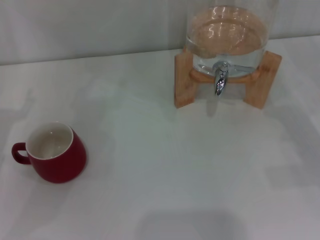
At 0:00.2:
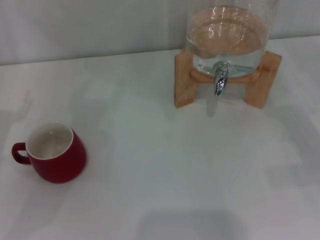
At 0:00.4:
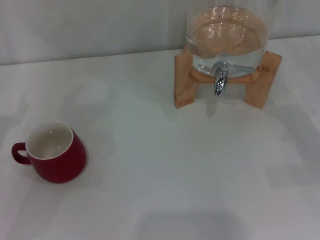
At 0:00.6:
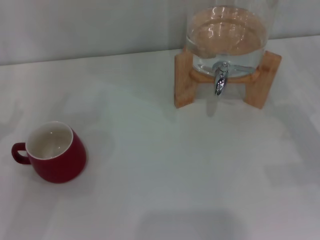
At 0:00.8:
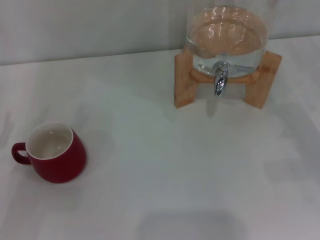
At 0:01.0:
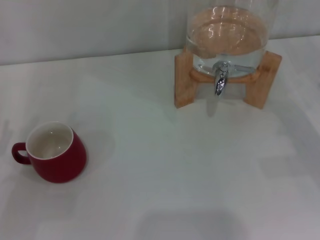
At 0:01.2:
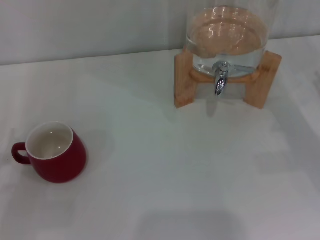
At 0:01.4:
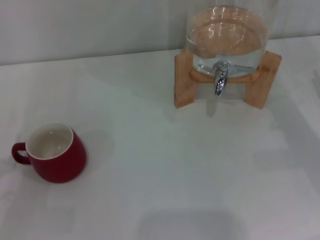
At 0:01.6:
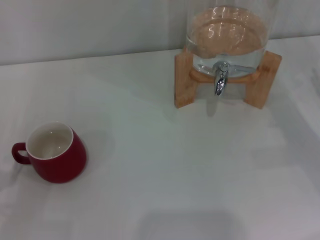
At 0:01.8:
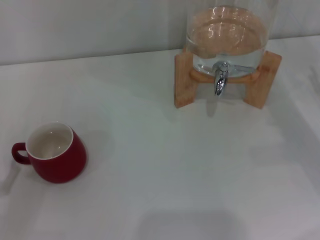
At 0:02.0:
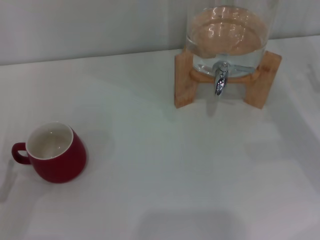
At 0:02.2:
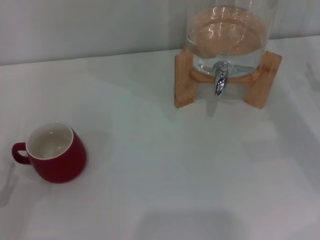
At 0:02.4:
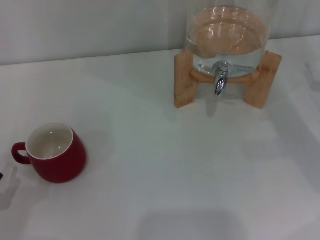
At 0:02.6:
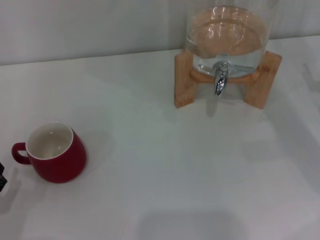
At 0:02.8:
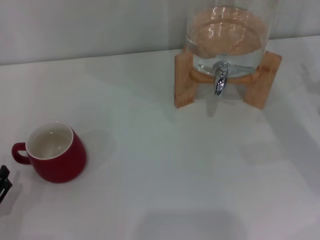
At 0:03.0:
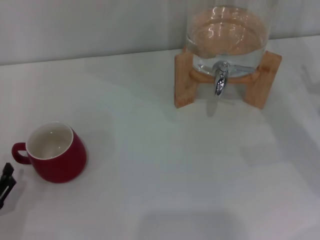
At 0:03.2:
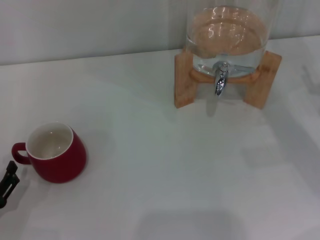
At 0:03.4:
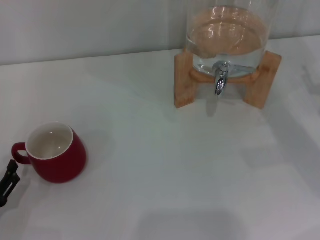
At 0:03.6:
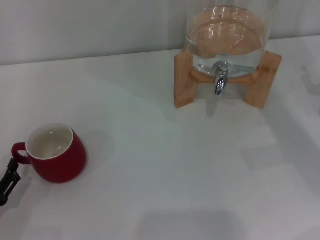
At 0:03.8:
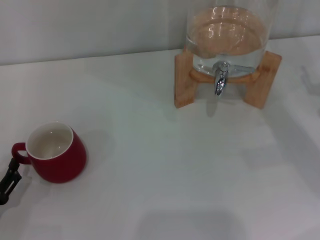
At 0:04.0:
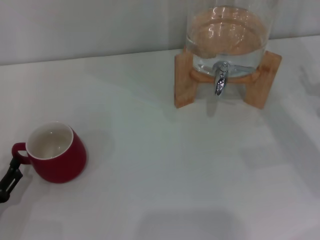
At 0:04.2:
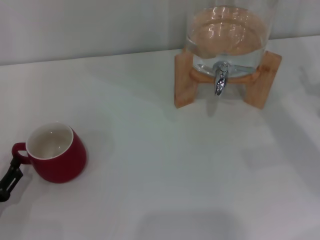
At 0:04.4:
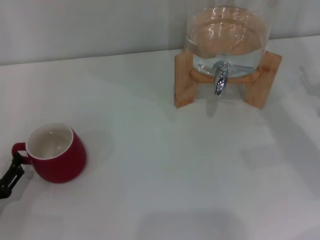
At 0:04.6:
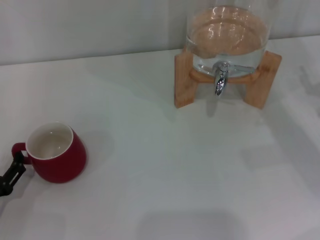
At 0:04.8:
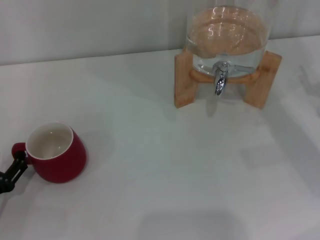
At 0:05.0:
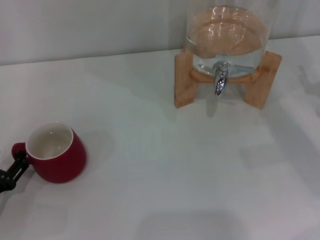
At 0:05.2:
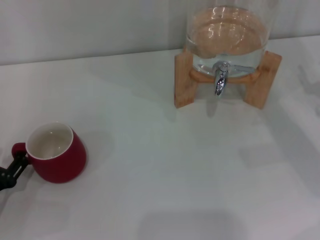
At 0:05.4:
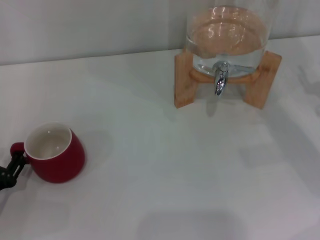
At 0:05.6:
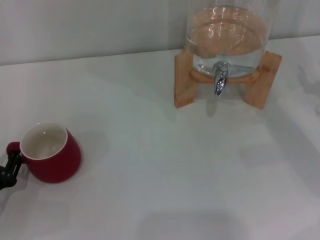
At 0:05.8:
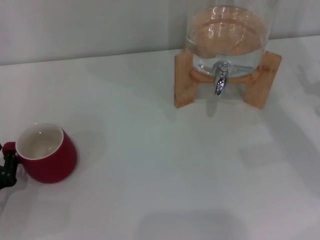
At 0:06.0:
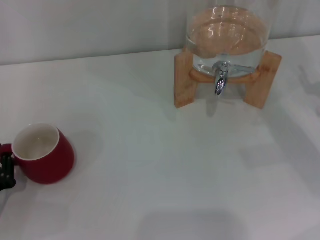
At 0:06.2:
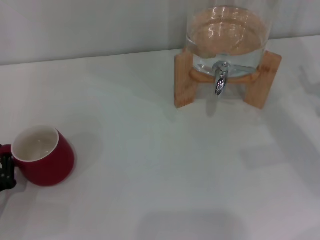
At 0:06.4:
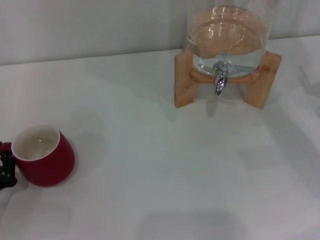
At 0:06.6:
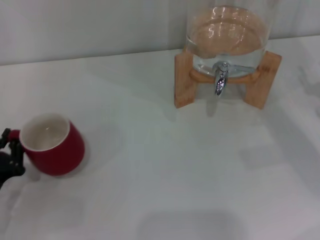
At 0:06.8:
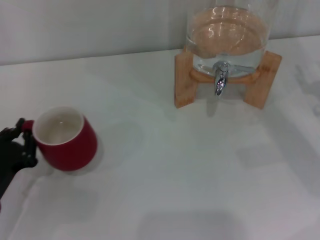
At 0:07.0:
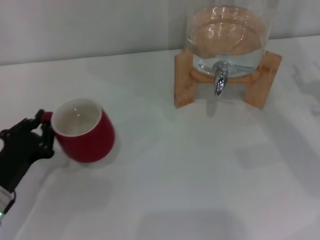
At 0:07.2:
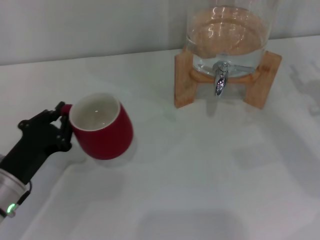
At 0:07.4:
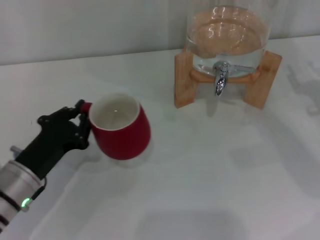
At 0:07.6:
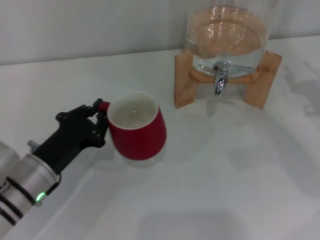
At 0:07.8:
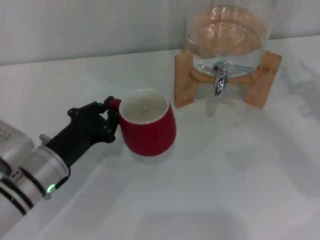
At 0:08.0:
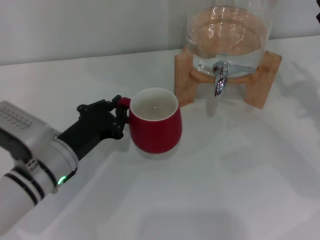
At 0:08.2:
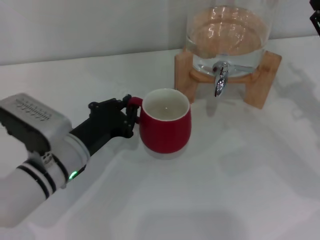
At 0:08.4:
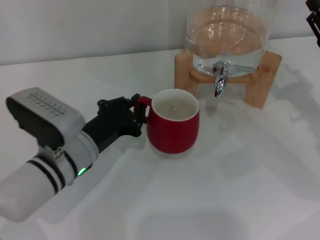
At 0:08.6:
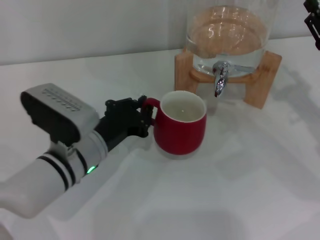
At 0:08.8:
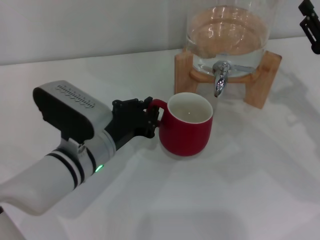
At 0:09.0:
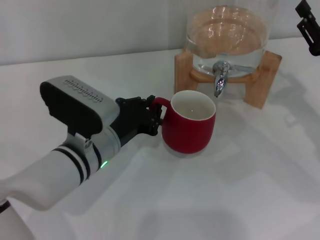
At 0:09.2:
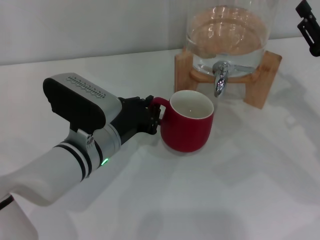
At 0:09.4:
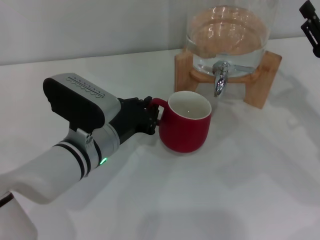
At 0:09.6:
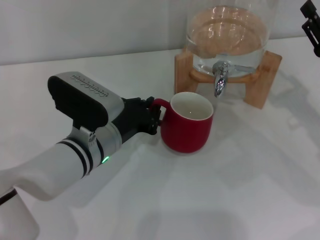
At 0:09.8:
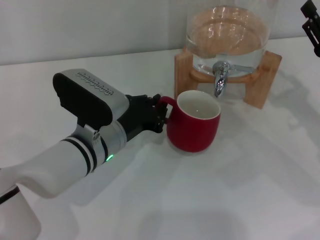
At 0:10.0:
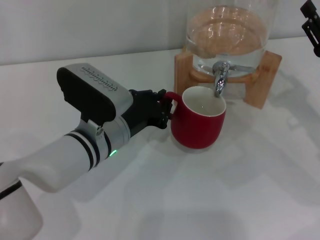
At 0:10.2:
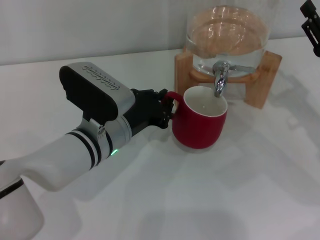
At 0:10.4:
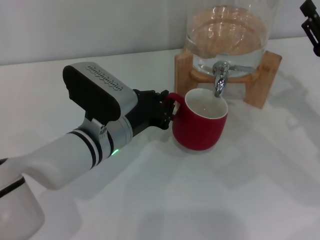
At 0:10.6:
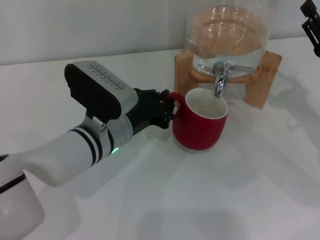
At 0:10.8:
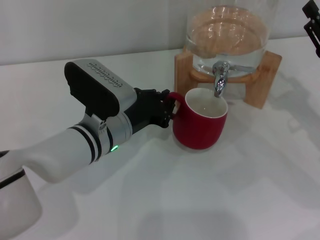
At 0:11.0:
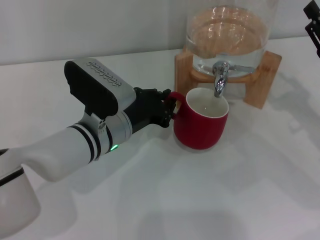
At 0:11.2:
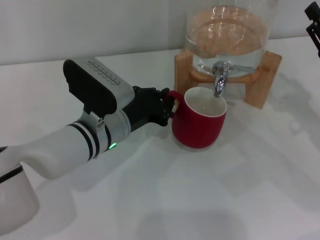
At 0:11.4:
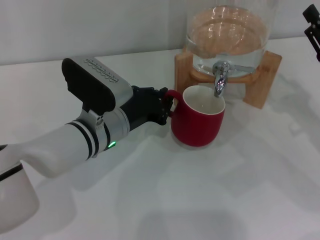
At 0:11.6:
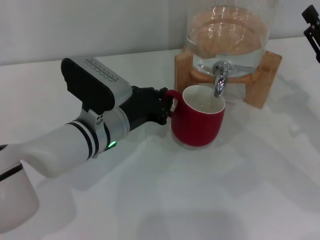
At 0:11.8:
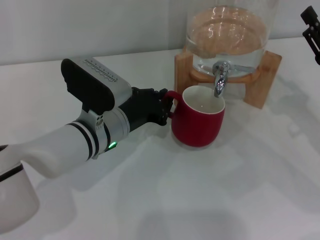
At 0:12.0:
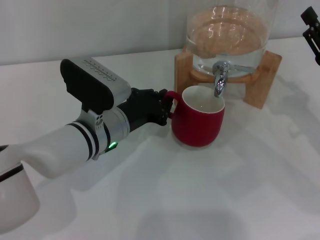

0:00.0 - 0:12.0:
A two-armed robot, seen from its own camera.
Task of the whole recording: the left gripper pick up the red cup and place it horizontally under the faucet, the right gripper turn on the faucet to fill the cup, and then turn off the faucet.
0:01.6 - 0:03.0: The grippers stay close to where they were, moving slightly.
0:04.4 - 0:06.0: The left gripper closes up.
0:06.0 - 0:07.6: The left gripper travels to the right and forward by some 10 cm.
0:07.6 - 0:09.0: The left gripper shifts roughly 10 cm to the right.
0:09.0 - 0:12.0: The grippers stay close to where they were, moving slightly.

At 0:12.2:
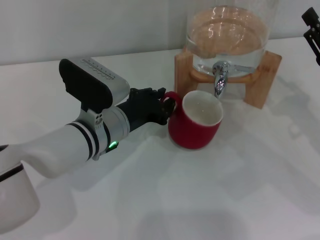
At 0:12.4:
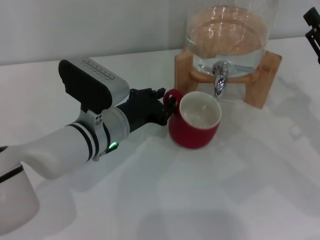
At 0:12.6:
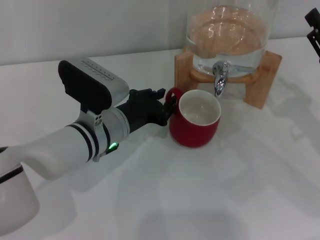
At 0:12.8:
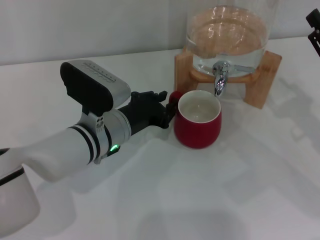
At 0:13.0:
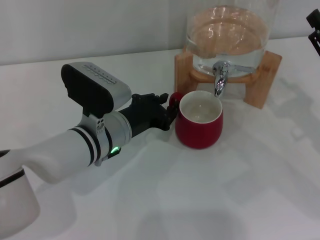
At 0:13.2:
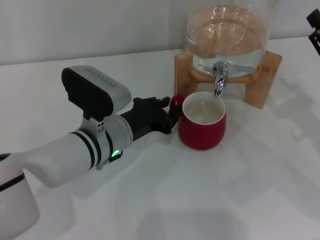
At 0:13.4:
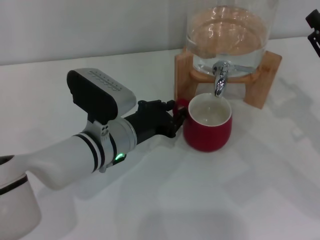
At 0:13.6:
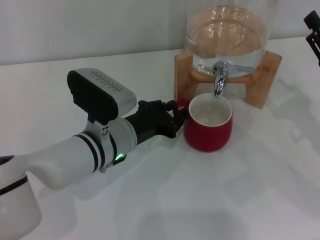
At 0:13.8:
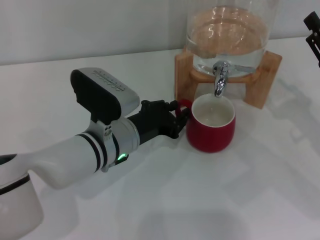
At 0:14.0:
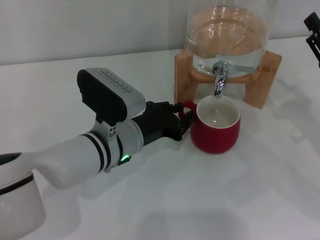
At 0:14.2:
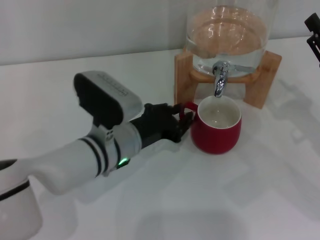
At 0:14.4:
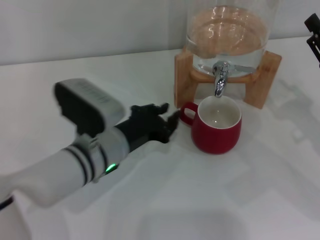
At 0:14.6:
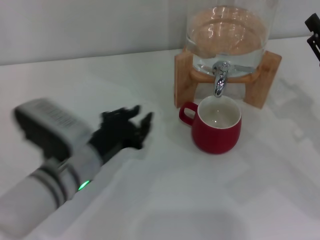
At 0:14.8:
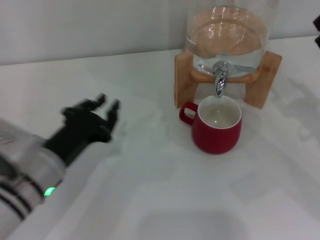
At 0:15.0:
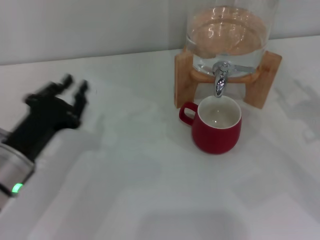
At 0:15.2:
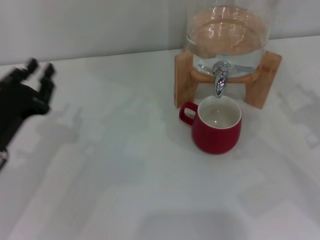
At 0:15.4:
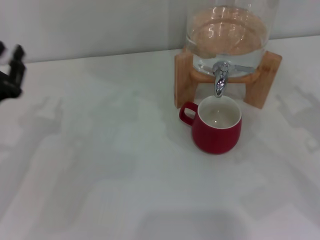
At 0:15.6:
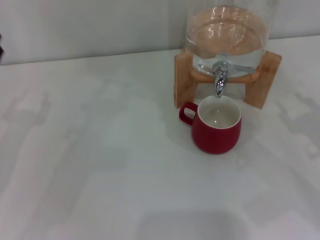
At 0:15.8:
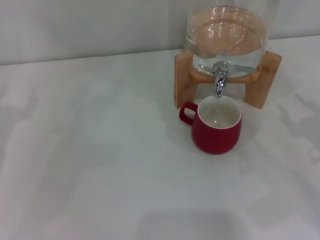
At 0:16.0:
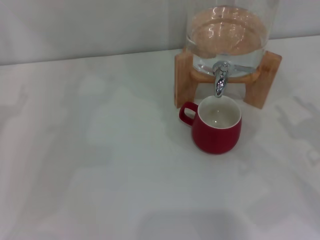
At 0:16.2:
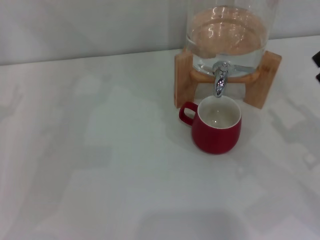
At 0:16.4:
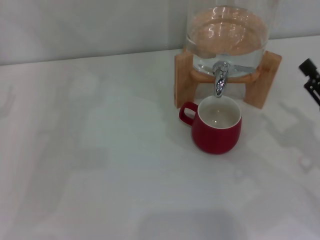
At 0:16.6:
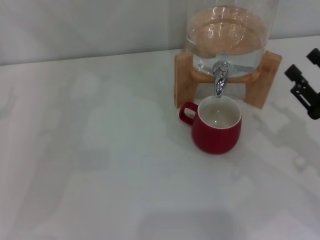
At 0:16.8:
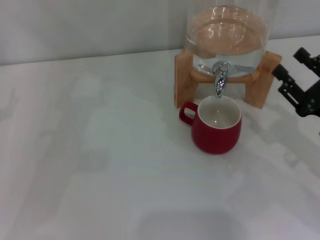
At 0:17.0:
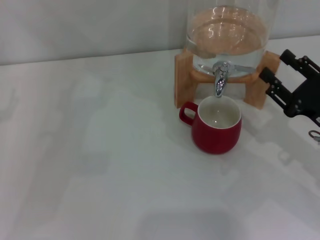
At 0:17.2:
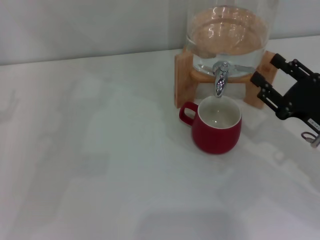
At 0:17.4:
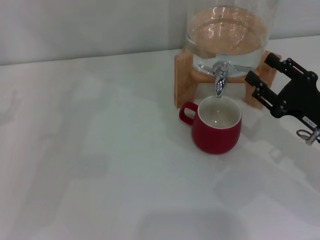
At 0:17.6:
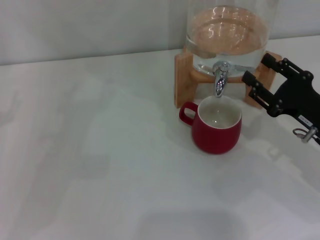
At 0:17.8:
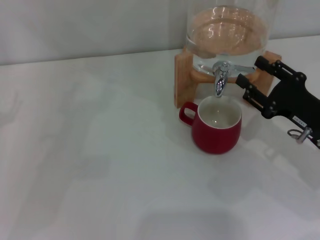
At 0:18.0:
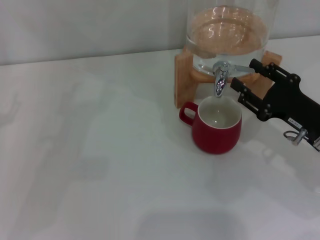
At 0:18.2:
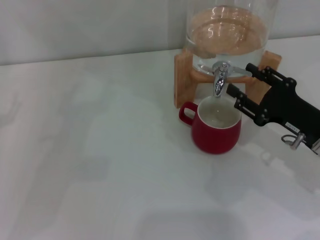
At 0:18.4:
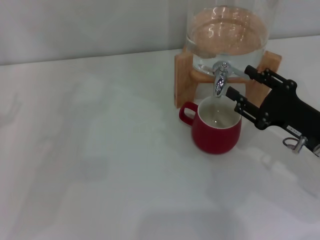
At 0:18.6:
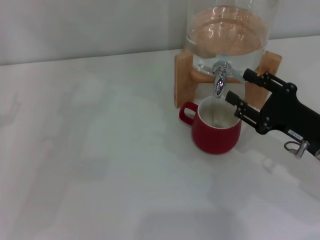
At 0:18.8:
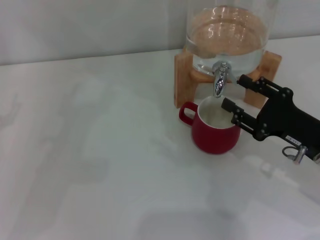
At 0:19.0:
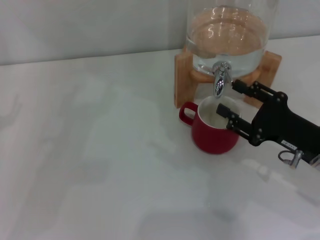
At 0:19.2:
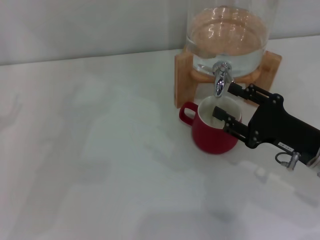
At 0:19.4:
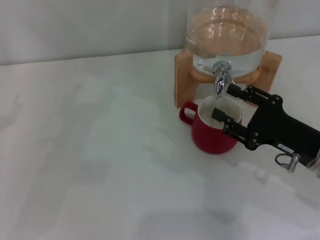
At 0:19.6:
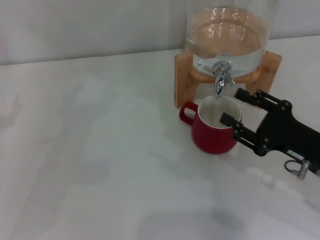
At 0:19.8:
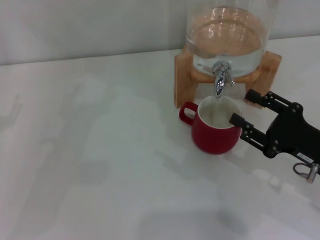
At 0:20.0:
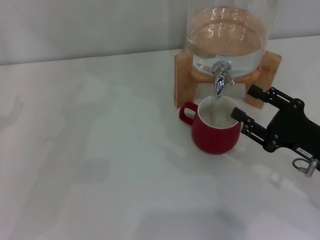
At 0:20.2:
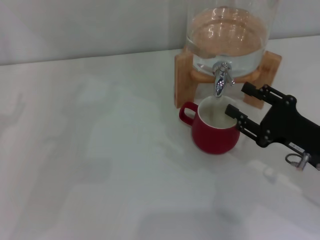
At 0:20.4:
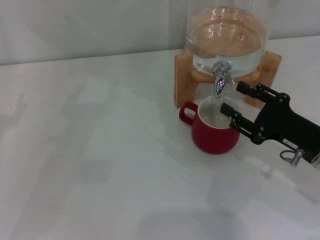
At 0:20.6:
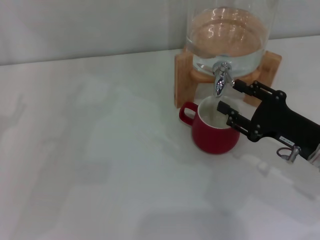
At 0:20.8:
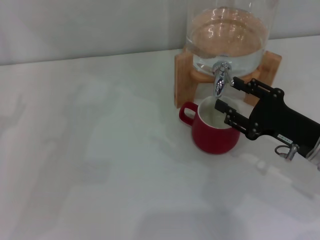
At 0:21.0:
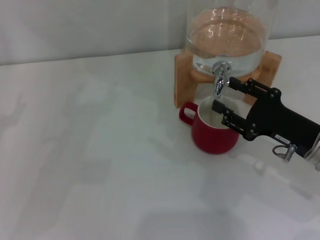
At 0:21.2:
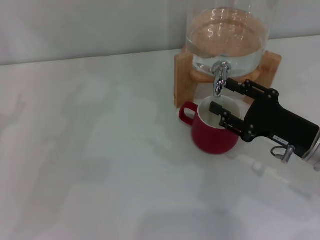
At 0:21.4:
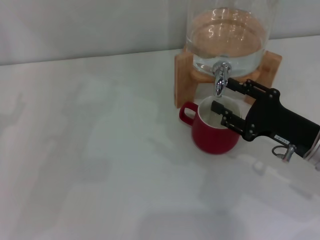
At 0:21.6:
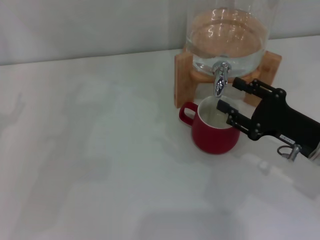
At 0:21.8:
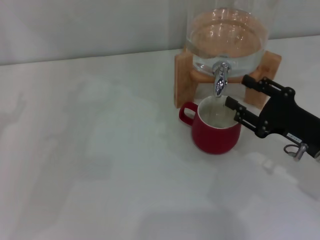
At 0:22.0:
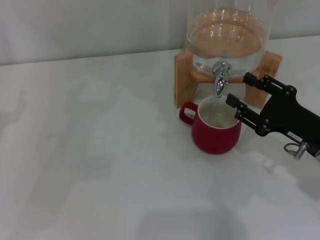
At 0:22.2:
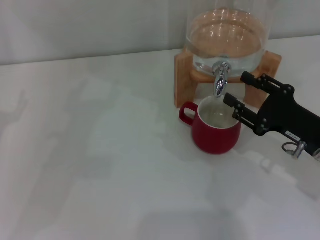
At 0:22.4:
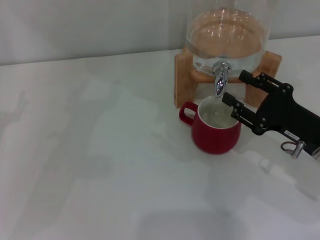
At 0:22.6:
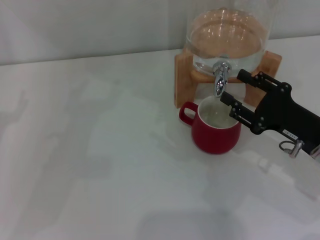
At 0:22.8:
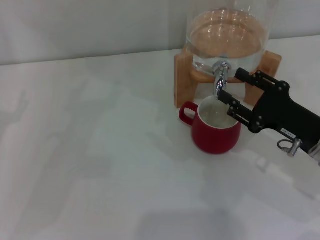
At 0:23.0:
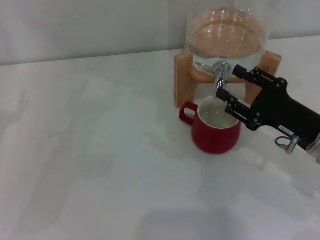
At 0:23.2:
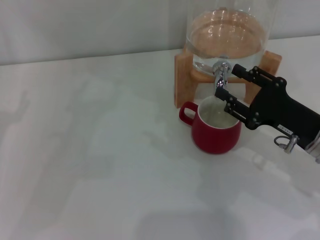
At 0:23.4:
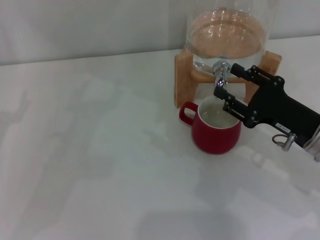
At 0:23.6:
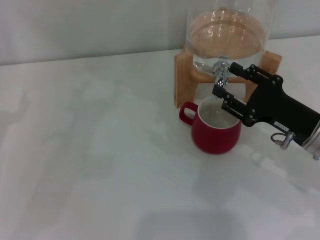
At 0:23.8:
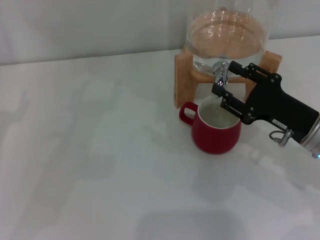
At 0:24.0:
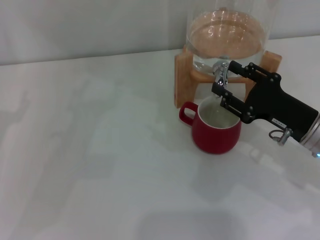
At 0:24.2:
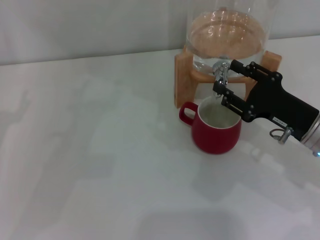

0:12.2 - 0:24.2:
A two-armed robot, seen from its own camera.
Task of the whole recording: the left gripper pick up the red cup and place it horizontally under the faucet, the right gripper turn on the faucet to fill the cup, and then turn off the faucet.
Step, 0:12.2 - 0:14.4: Move the cup beneath the water dispenser nozzle with the left gripper.
Step, 0:14.8 - 0:21.4: Open the dispenser valve and fill the cup with water with the right gripper.
0:12.2 - 0:13.8: The grippers stay close to where they were, moving slightly.
0:13.8 - 0:15.2: The left gripper travels to the left by some 15 cm.
0:15.2 - 0:16.6: The left gripper goes approximately 10 cm to the left, and opens up.
0:16.6 - 0:18.2: The right gripper shifts by about 5 cm.
0:18.2 - 0:24.2: The grippers move only a little.
